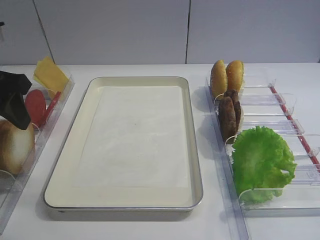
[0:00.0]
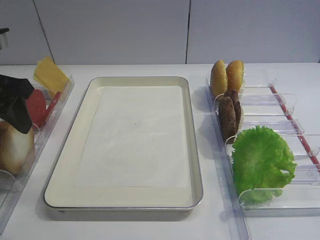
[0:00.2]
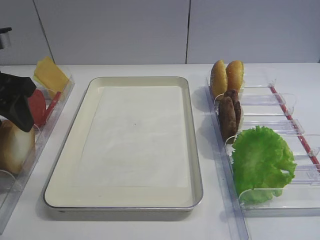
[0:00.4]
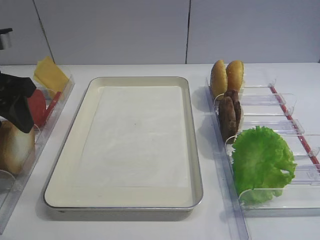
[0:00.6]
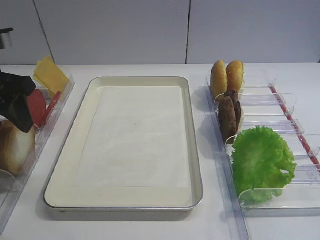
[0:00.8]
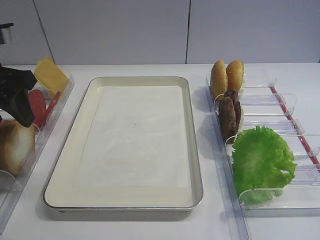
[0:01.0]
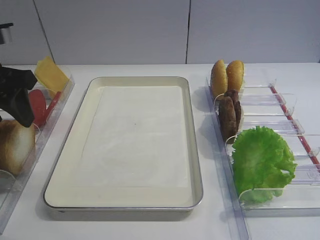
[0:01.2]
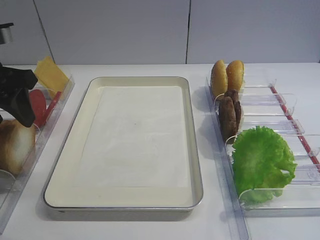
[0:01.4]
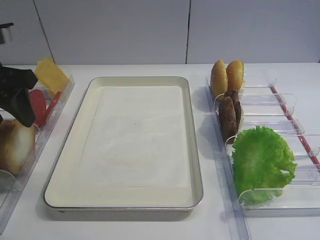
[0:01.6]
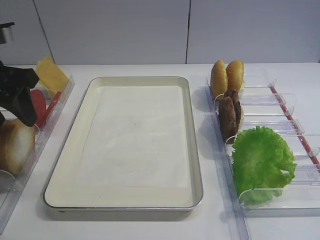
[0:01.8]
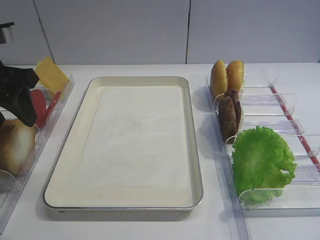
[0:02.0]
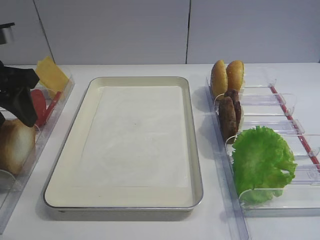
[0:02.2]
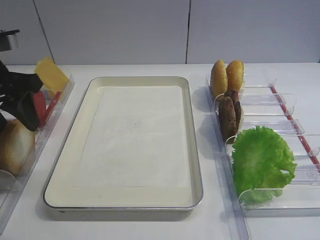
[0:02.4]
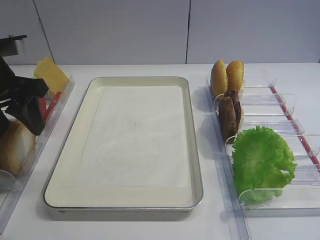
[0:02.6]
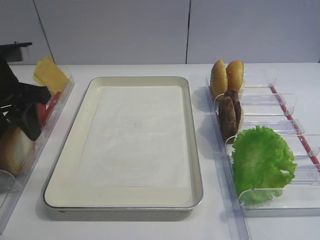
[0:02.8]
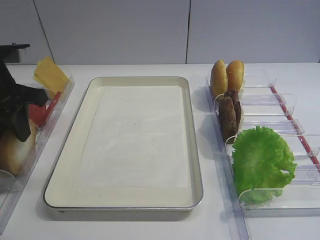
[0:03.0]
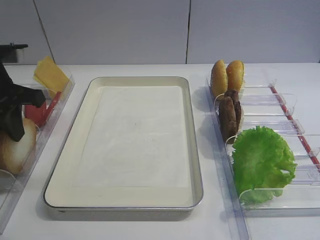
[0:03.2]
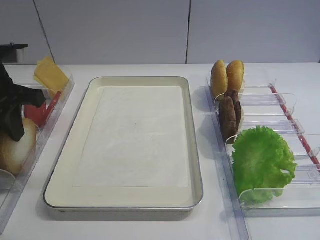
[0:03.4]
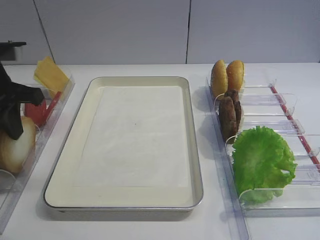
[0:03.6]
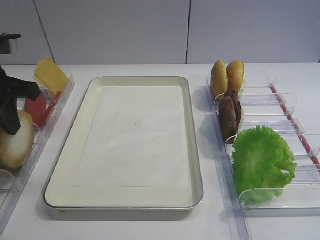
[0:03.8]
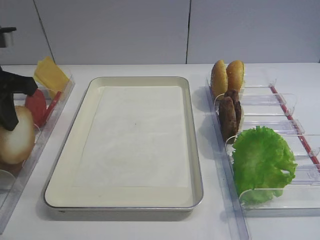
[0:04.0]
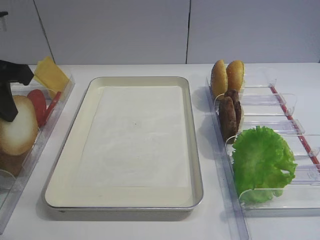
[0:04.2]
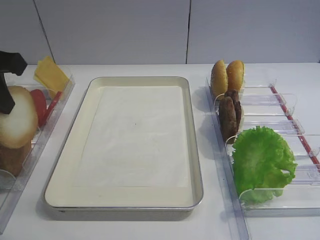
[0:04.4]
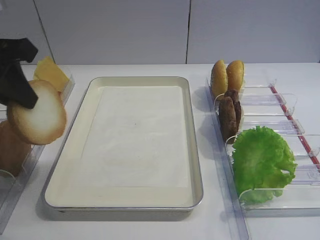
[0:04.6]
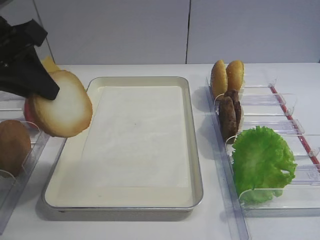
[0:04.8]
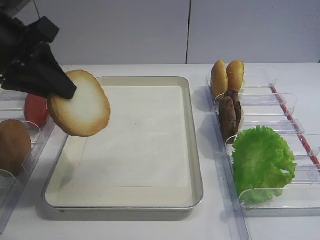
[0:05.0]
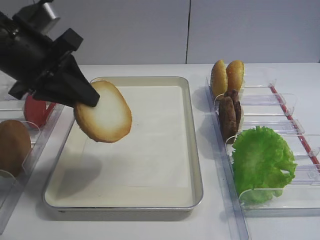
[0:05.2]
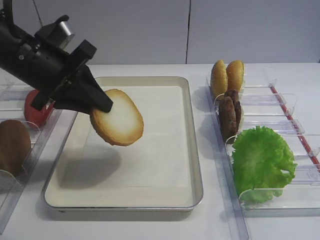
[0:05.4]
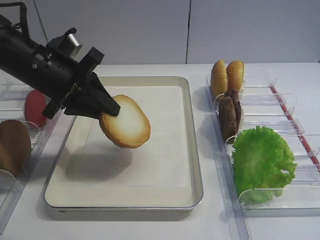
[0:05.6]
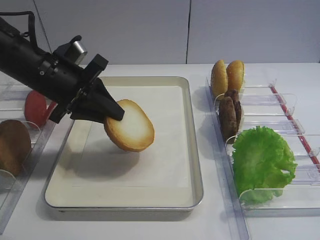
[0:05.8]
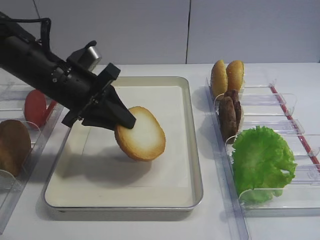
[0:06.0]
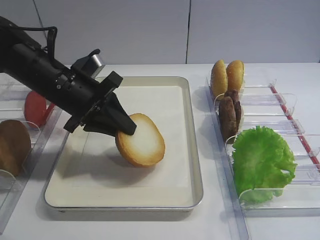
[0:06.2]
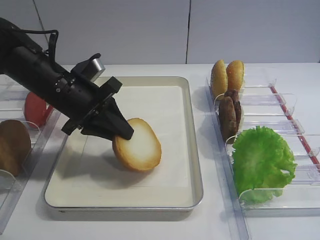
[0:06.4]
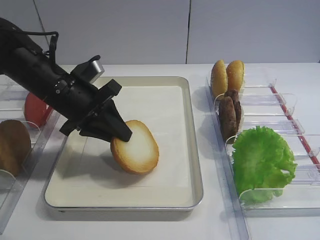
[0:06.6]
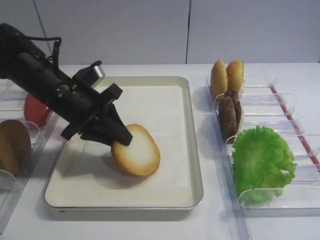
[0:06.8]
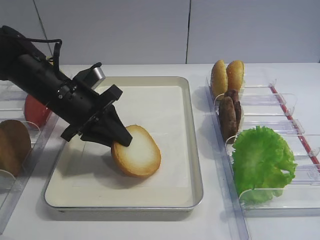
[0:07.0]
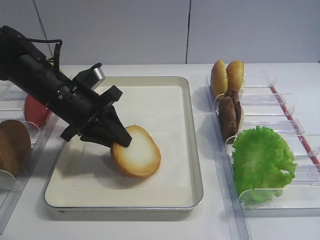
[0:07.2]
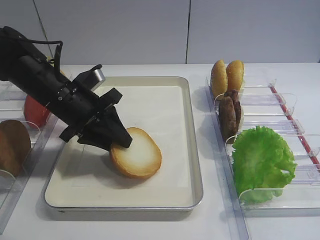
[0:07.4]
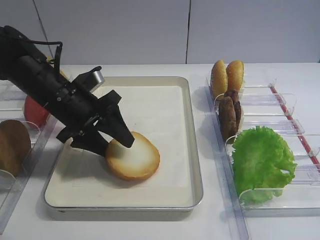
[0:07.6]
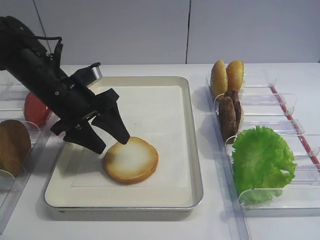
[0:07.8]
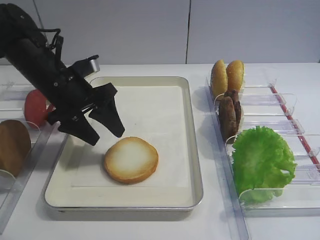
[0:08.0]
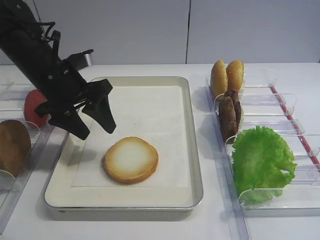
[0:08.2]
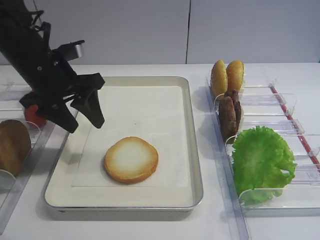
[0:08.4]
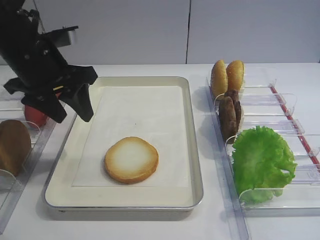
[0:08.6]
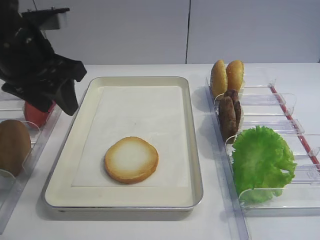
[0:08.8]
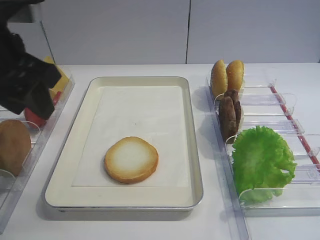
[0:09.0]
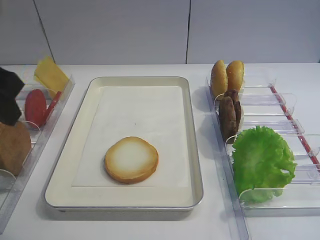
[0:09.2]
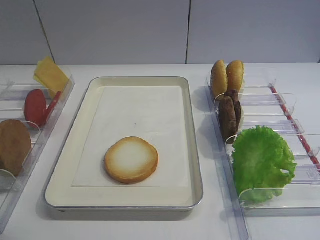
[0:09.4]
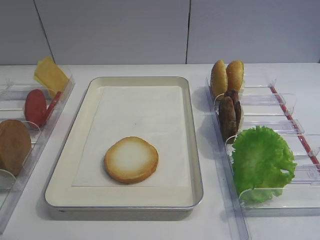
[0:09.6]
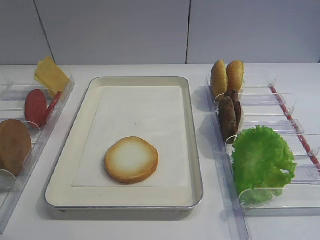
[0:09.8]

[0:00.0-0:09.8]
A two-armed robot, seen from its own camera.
Step, 0:00.0 to 0:04.0: Pick up the bread slice with the left gripper.
Step, 0:04.2 to 0:08.0: Place the bread slice on the tray with the left gripper.
0:00.0 to 0:02.8: The grippers stay close to where they were, moving slightly.
0:02.8 to 0:04.2: The left gripper shifts by roughly 5 cm, and closes.
0:04.2 to 0:05.6: The left gripper is displaced to the right, downward and forward by about 10 cm.
0:05.6 to 0:07.0: The left gripper goes about 5 cm downward.
0:07.0 to 0:08.4: The left gripper travels upward by some 5 cm, and opens.
0:08.4 to 0:09.8: The left gripper is displaced backward and upward by about 30 cm.

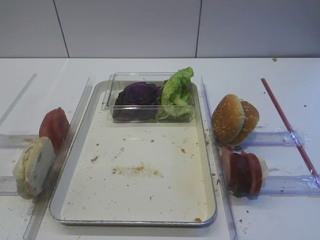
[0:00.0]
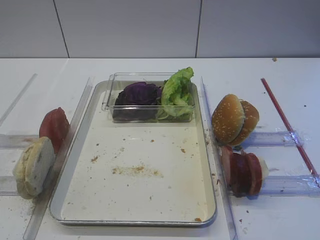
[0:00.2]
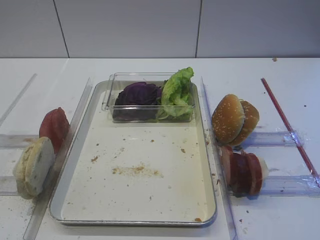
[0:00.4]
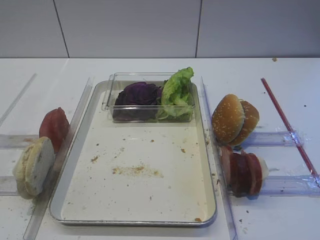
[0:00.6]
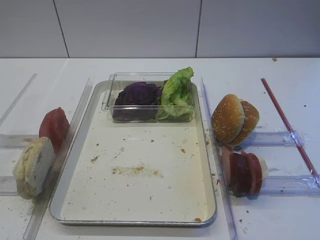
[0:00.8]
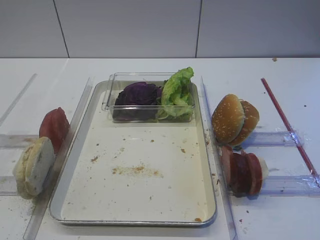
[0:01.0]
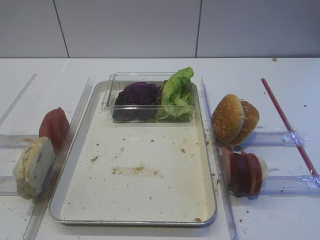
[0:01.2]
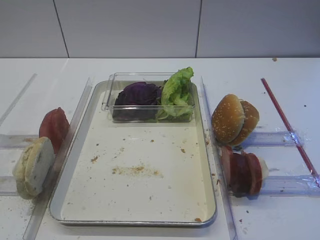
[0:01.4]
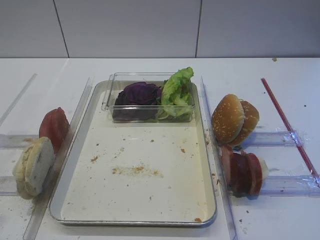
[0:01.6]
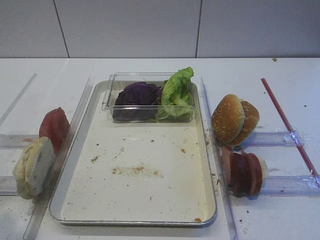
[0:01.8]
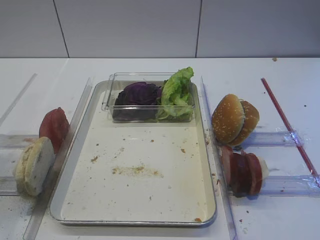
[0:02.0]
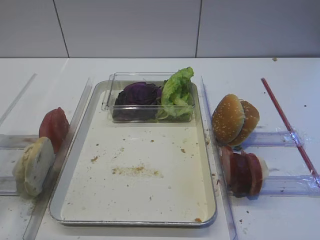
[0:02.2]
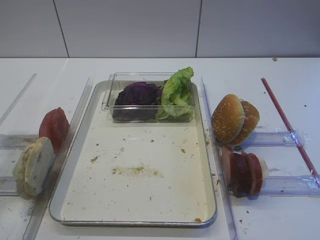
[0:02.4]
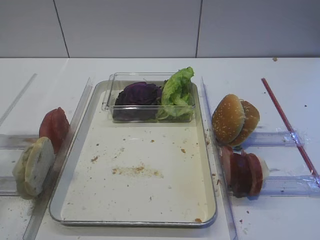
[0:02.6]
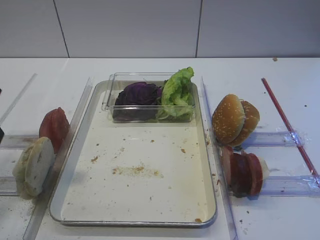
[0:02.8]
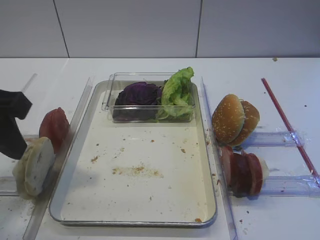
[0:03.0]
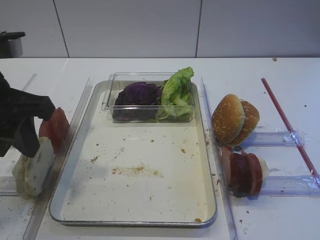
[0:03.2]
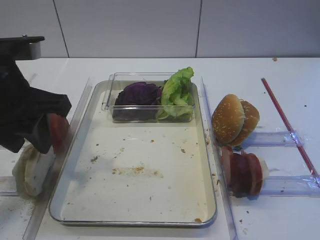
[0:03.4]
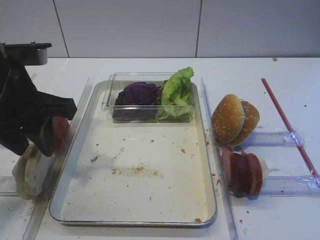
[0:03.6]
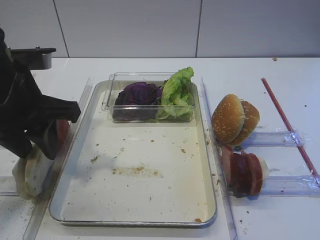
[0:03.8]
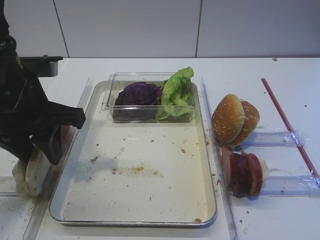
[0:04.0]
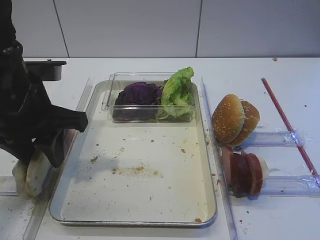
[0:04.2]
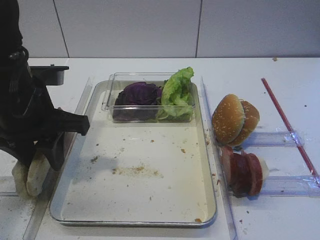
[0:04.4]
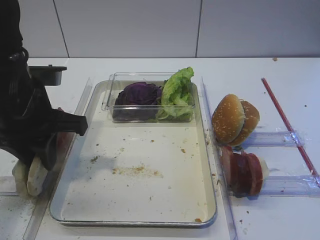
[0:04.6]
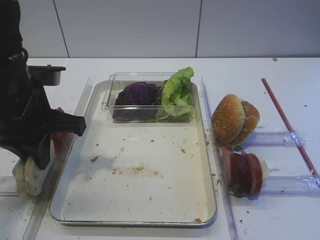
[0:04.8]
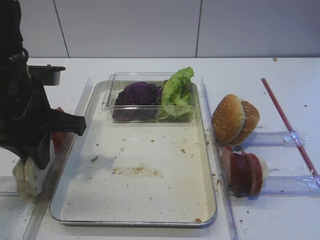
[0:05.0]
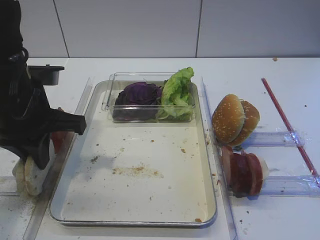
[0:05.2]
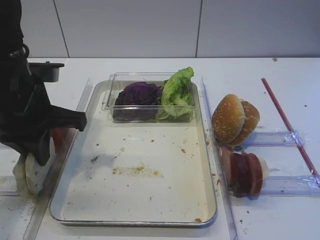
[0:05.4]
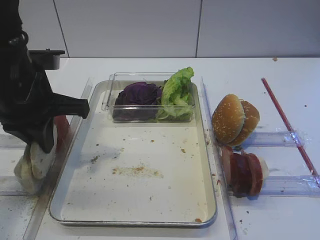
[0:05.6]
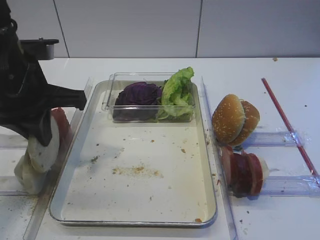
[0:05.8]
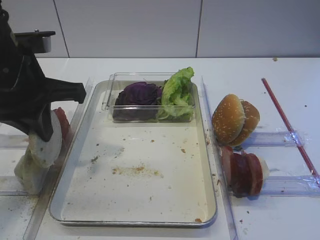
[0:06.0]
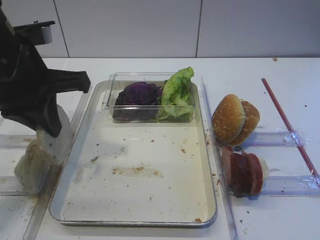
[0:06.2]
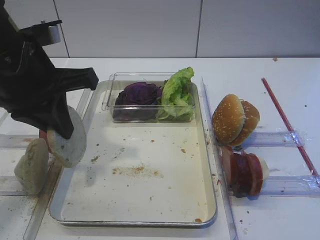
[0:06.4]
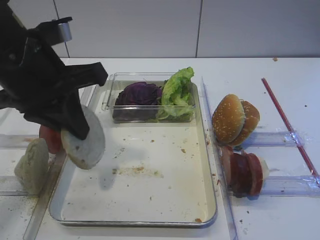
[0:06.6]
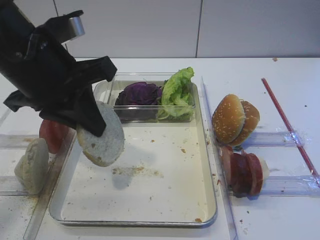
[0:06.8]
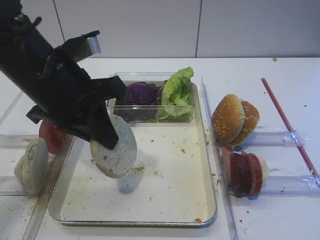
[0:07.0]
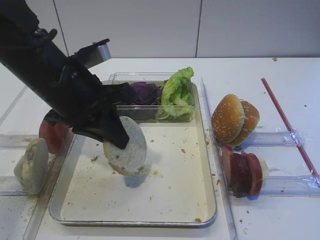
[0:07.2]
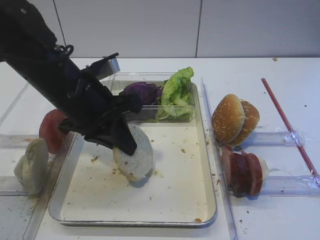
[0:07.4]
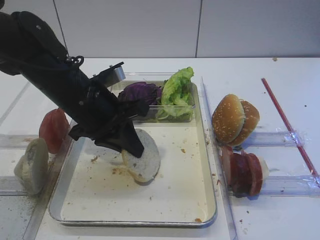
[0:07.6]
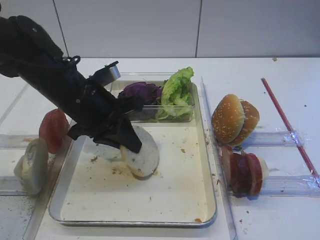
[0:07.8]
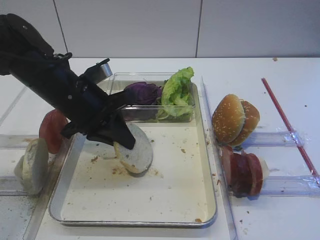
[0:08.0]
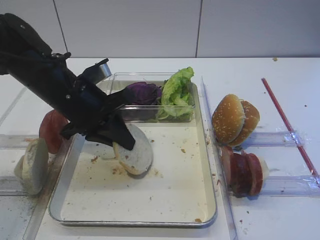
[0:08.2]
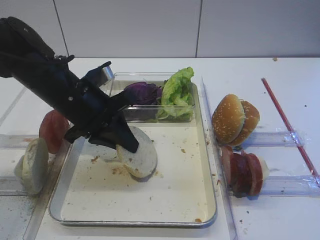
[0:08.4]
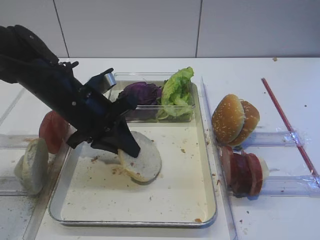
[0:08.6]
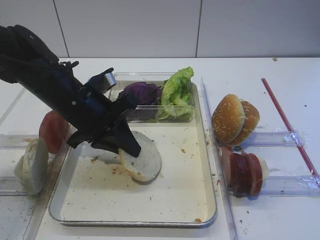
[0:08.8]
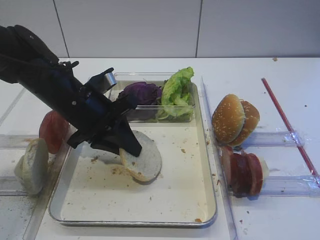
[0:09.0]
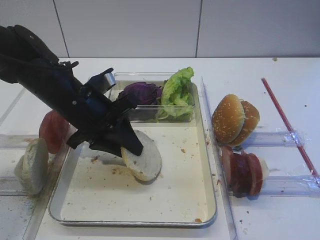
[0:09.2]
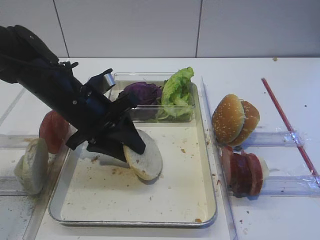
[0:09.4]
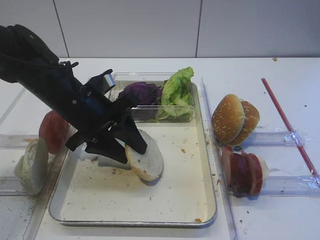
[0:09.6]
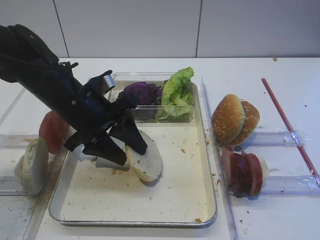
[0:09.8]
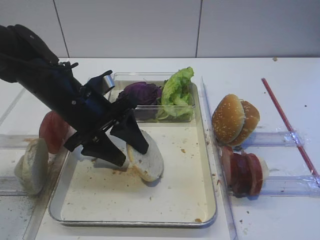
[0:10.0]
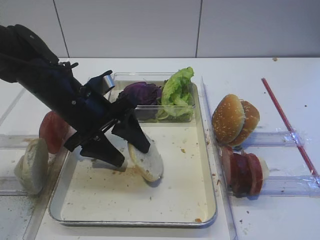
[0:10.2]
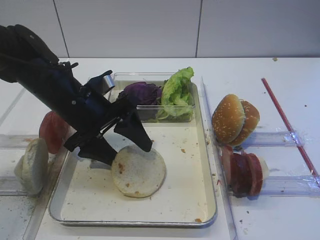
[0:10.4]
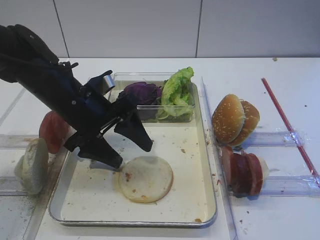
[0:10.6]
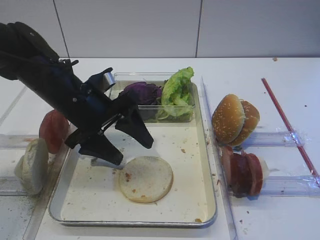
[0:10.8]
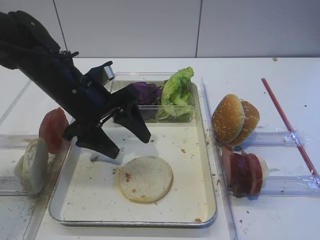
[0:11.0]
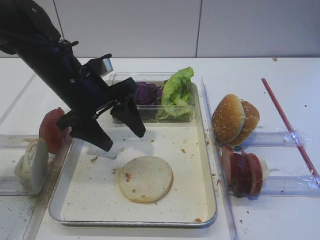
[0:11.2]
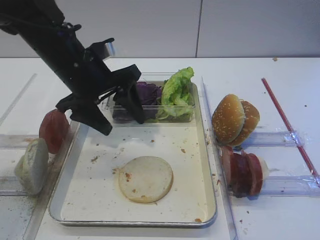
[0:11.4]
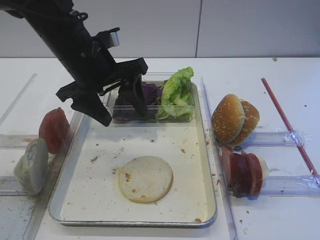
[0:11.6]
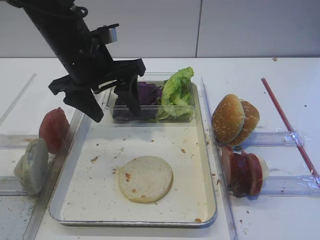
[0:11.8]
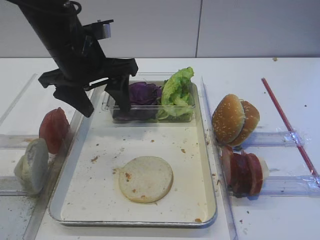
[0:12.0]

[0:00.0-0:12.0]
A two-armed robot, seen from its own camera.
Step, 0:00.0 to 0:05.6: Pick up the bread slice with the left gripper.
Step, 0:05.8 to 0:10.8: Place the bread slice on the tray with the left gripper.
0:01.6 to 0:03.0: The left gripper travels forward and to the right by approximately 15 cm.
0:03.0 to 0:04.4: The left gripper heads forward and downward, covering roughly 10 cm.
0:04.4 to 0:06.0: The left gripper closes its fingers.
0:06.0 to 0:07.6: The left gripper moves downward and to the right, some 10 cm.
0:07.6 to 0:09.0: The grippers stay close to where they were, moving slightly.
0:09.0 to 0:10.4: The left gripper opens its fingers.
0:10.4 to 0:12.0: The left gripper shifts some 10 cm upward.
